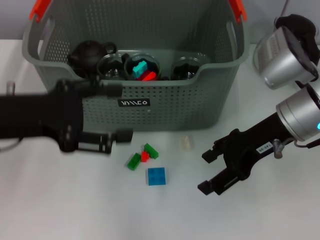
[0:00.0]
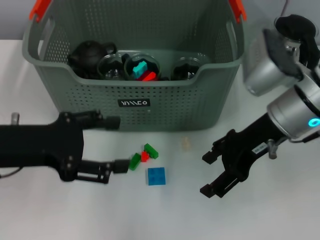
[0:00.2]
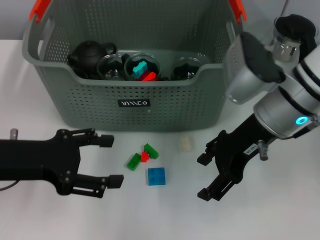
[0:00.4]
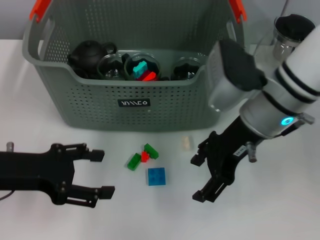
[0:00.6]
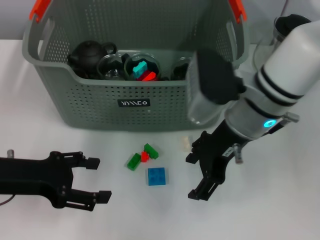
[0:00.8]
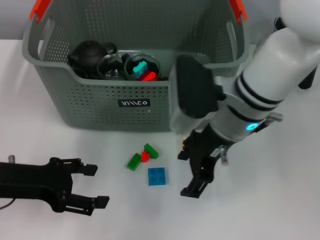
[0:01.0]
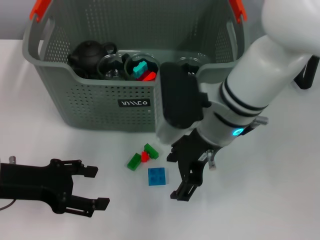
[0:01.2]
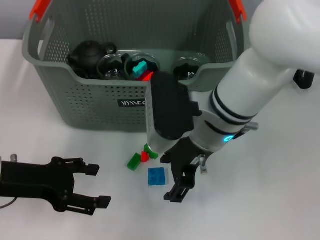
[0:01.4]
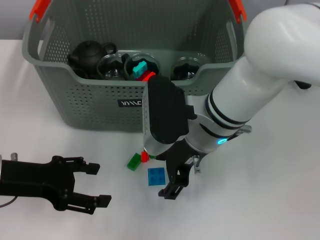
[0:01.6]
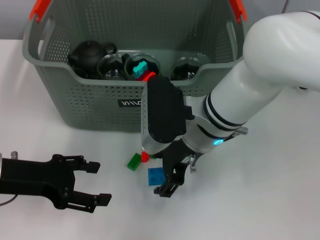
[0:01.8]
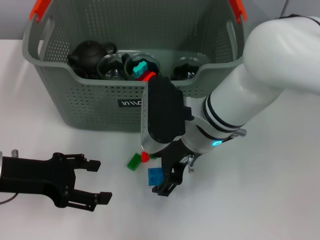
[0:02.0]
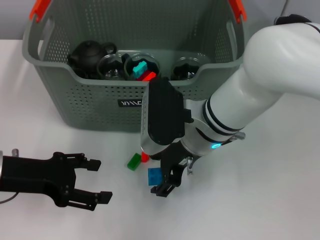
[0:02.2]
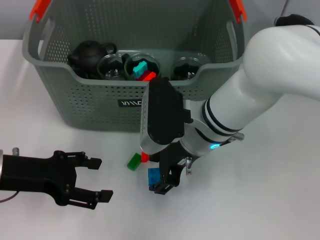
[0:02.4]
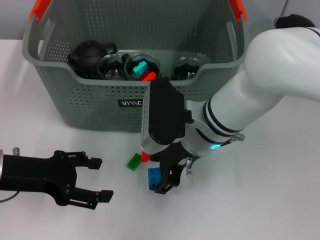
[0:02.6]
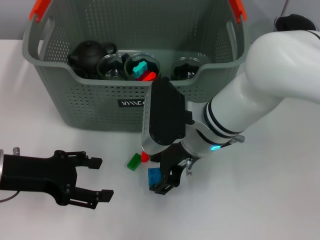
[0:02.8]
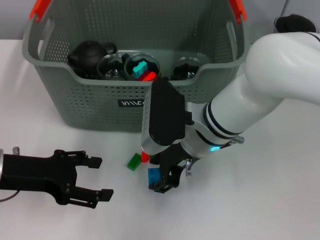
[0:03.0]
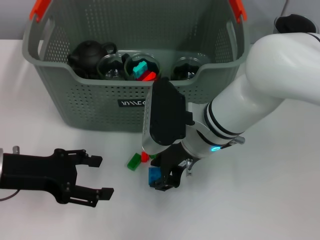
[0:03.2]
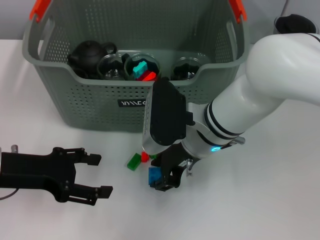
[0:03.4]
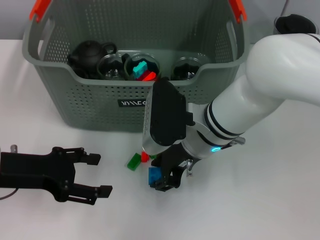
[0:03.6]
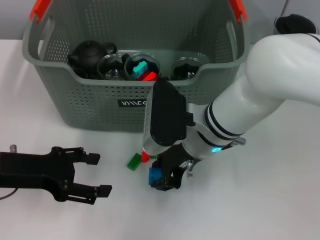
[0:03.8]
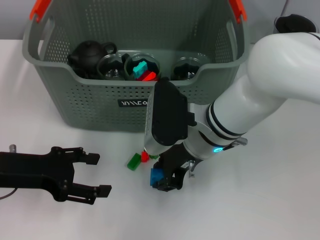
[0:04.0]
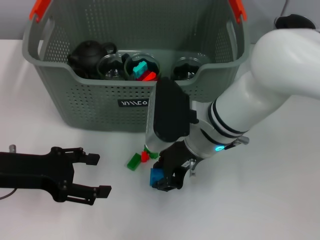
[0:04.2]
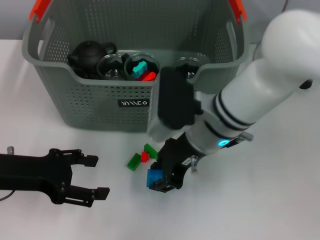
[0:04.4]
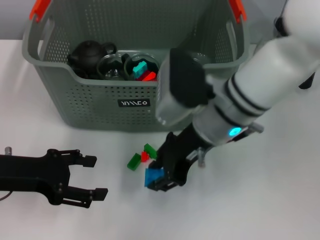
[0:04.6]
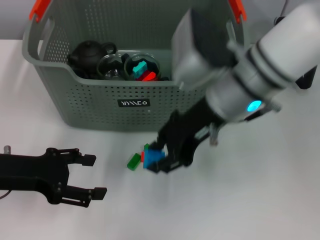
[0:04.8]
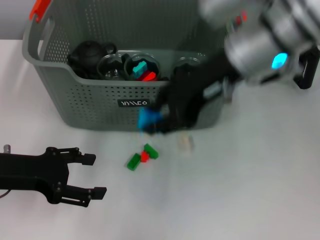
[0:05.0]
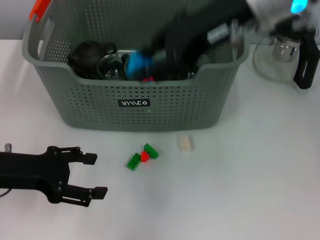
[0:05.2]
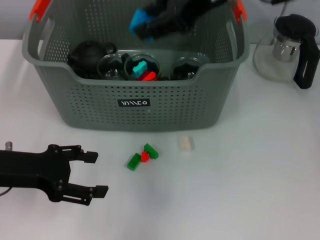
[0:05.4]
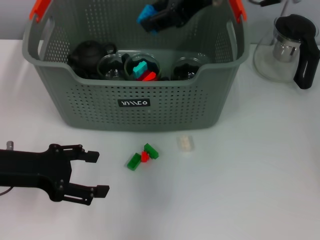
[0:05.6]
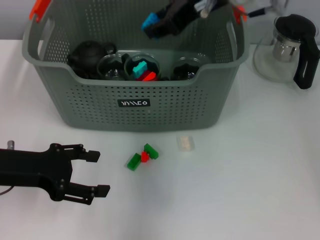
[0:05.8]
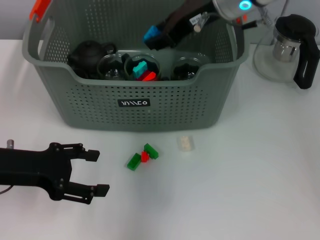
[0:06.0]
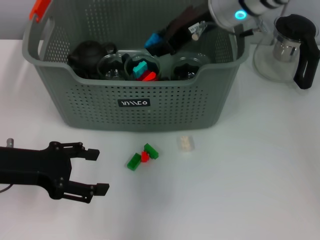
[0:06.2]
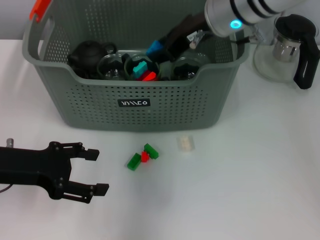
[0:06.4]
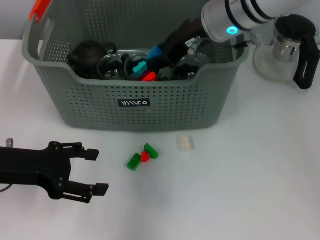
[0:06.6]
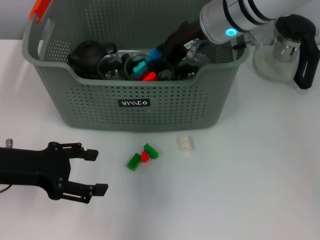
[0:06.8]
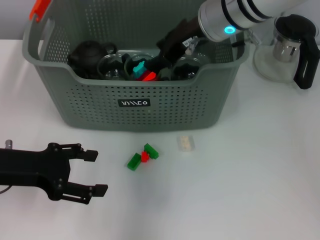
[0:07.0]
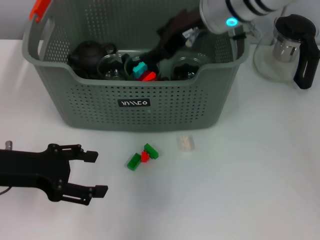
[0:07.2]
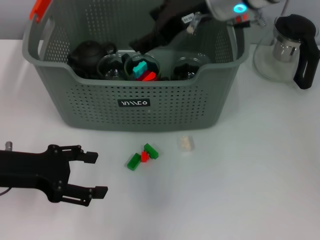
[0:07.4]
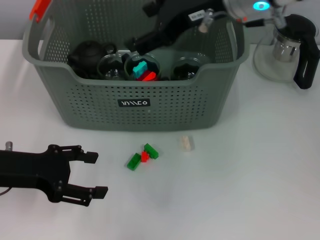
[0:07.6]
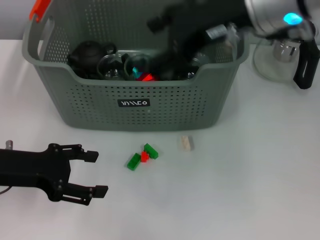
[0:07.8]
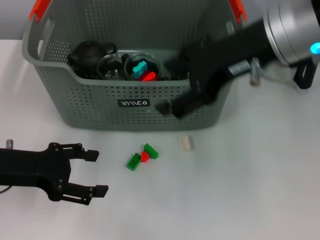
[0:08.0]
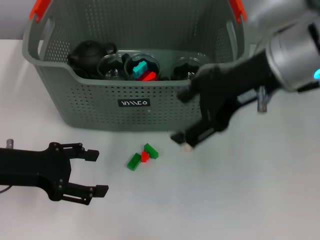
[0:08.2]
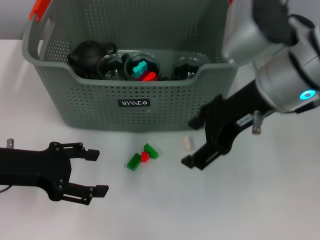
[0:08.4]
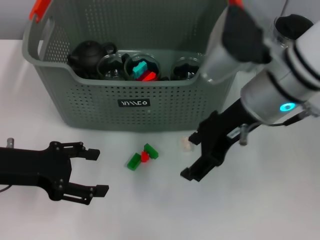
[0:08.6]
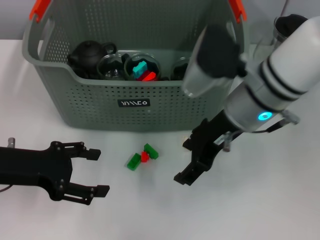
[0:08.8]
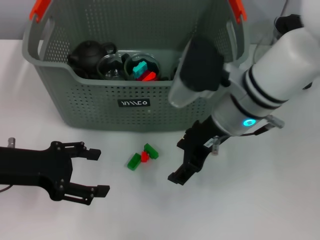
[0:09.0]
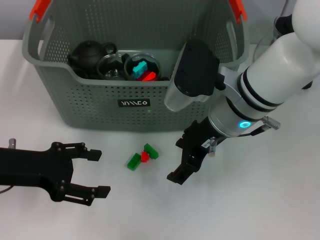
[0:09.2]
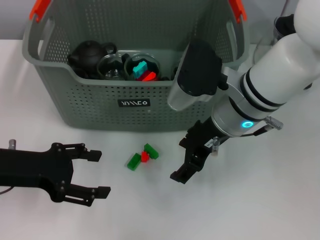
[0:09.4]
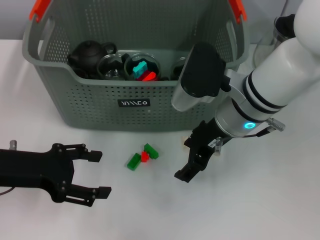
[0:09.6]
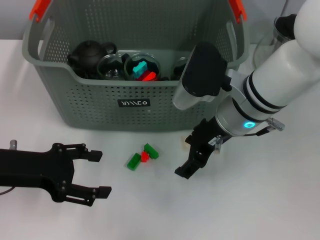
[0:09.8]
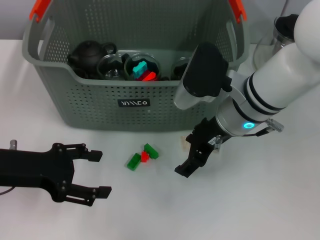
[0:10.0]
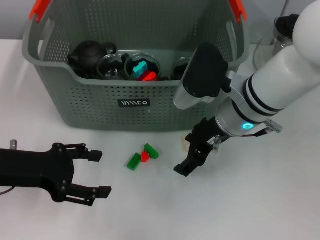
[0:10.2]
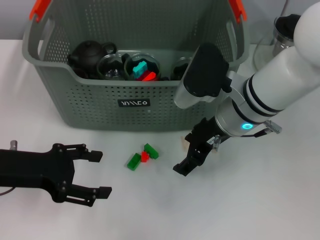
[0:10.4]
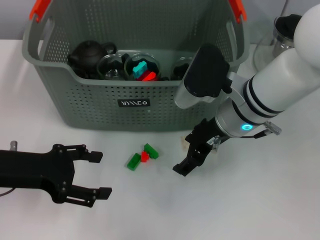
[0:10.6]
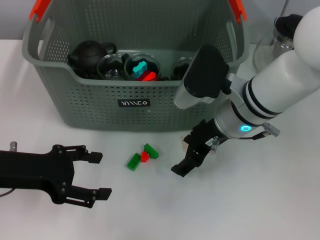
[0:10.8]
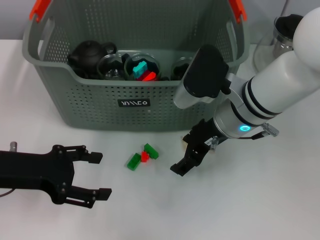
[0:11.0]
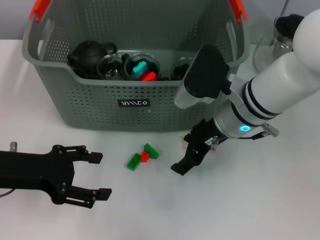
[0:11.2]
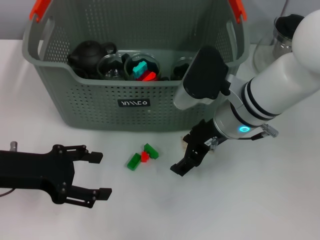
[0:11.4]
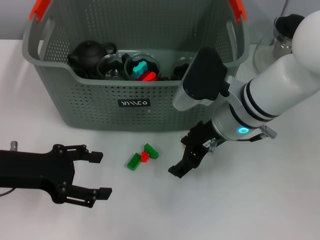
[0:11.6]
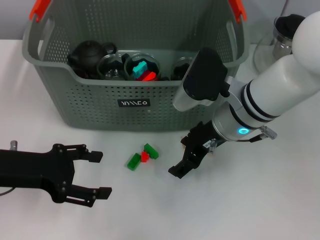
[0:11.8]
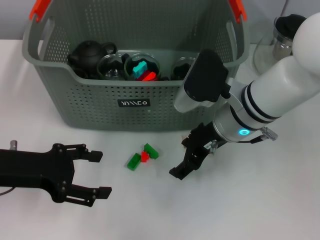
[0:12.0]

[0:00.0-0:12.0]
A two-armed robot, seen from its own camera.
Task of the whole recording: pick up the teacup on the table and place it into the storage bin, pick up the block on the table and place it into the storage bin.
Step, 0:00.0 to 0:04.0: Grasp the dark blue block with right gripper.
Step, 0:04.2 to 0:07.2: Place the dark blue block in the storage box with right gripper.
0:00.0 to 0:01.6: The left gripper is displaced downward by roughly 10 cm. Meanwhile the right gripper travels to the left by some 15 cm.
0:01.6 to 0:04.4: The grippers stay close to where they were, moving slightly.
0:04.4 to 0:06.0: The right gripper travels upward and forward by approximately 15 cm.
0:06.0 to 0:07.6: The right gripper ends up about 5 cm from where it was, and opens.
0:07.6 to 0:09.0: The right gripper moves downward, some 10 cm.
0:09.0 to 0:10.4: The grippers stay close to where they were, moving slightly.
0:10.4 to 0:12.0: Both grippers stay about where they are.

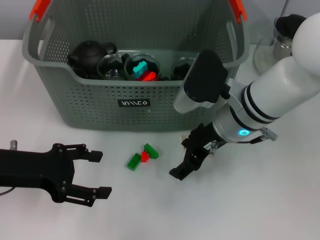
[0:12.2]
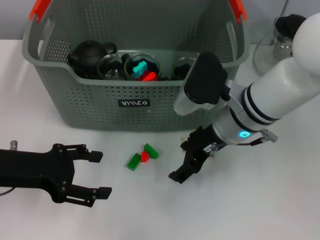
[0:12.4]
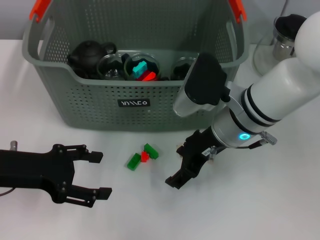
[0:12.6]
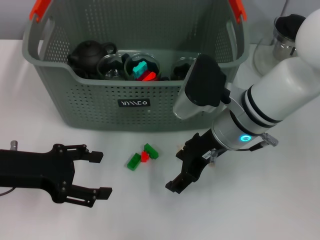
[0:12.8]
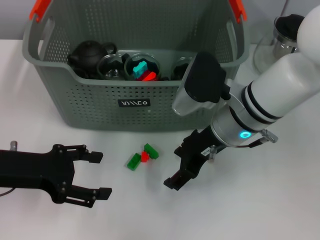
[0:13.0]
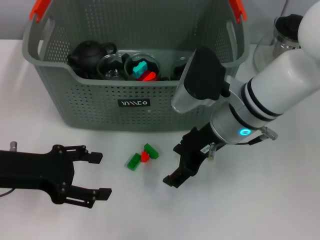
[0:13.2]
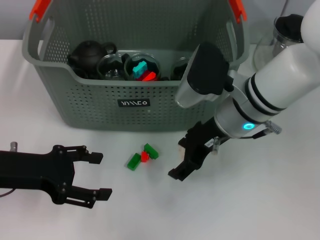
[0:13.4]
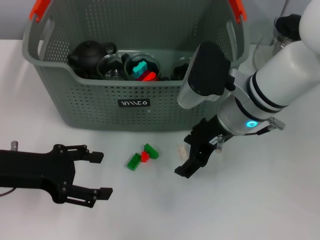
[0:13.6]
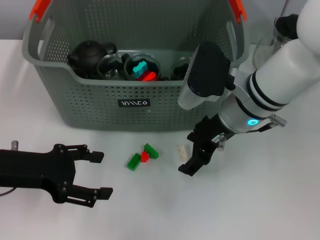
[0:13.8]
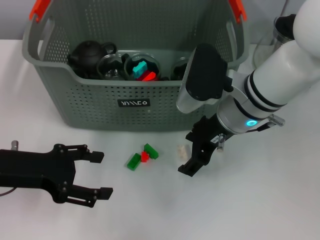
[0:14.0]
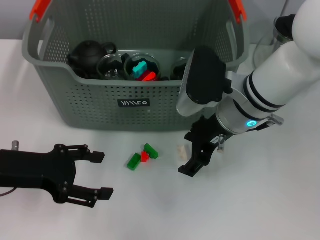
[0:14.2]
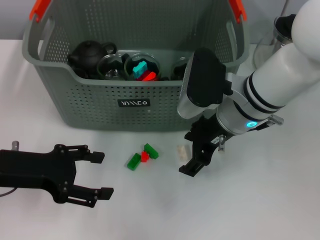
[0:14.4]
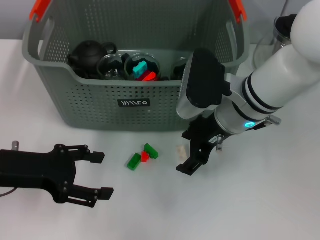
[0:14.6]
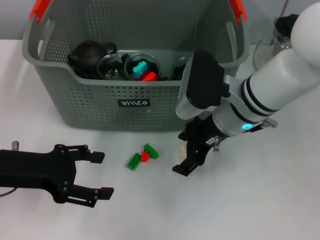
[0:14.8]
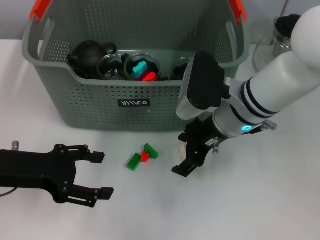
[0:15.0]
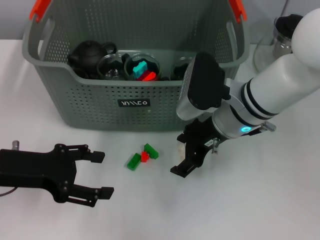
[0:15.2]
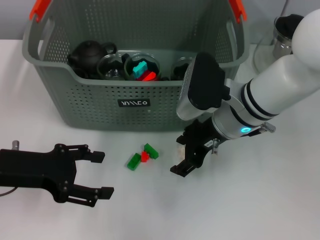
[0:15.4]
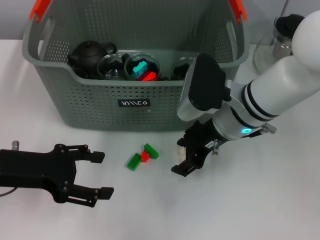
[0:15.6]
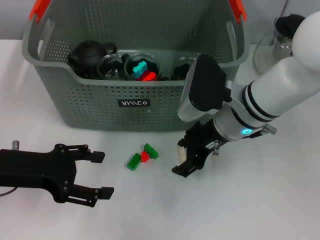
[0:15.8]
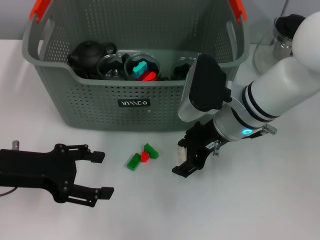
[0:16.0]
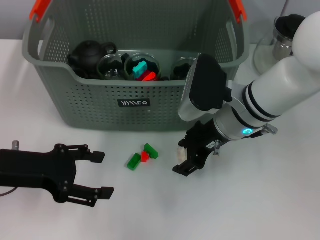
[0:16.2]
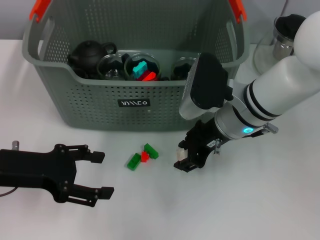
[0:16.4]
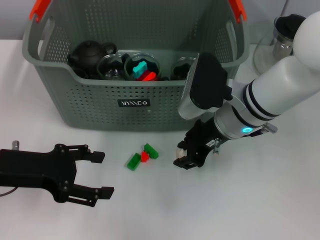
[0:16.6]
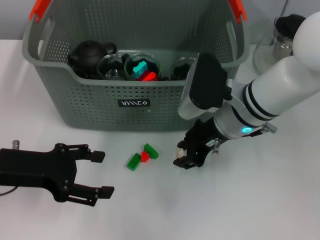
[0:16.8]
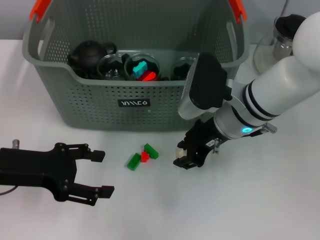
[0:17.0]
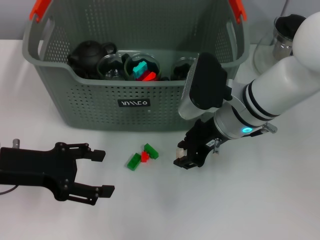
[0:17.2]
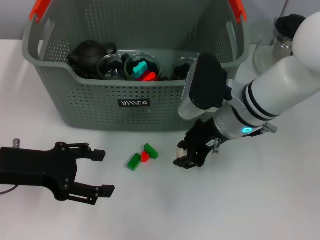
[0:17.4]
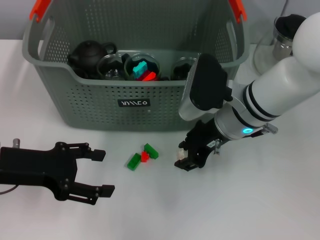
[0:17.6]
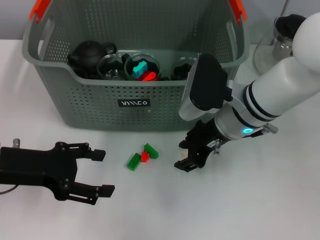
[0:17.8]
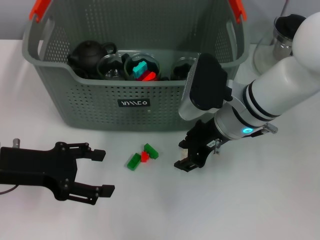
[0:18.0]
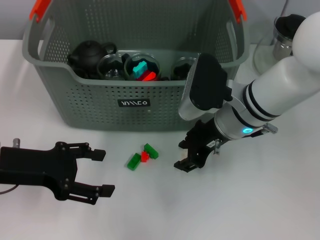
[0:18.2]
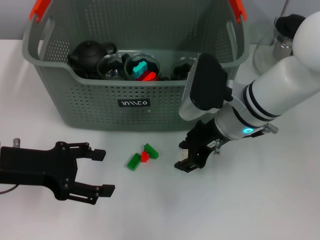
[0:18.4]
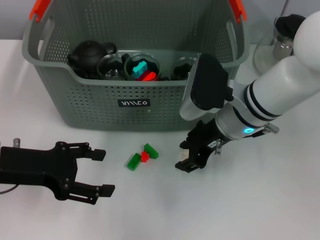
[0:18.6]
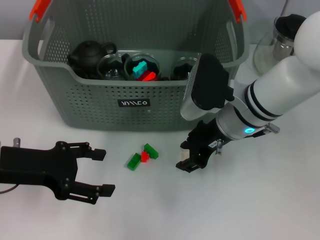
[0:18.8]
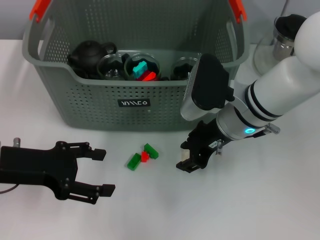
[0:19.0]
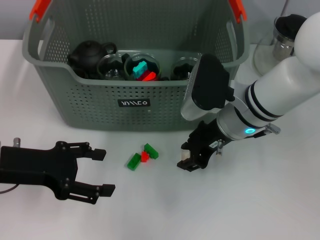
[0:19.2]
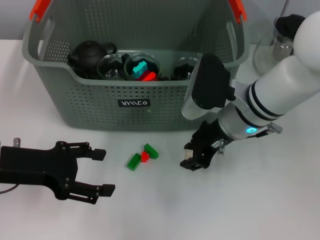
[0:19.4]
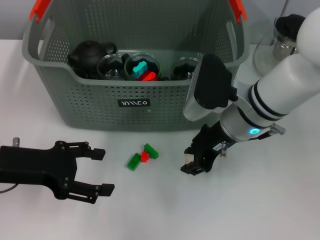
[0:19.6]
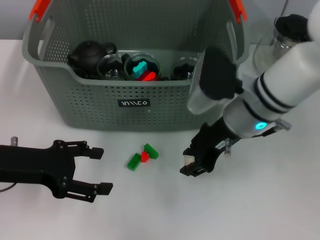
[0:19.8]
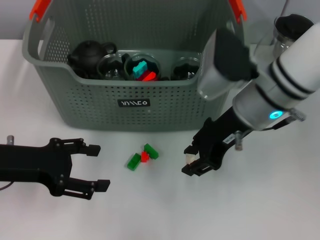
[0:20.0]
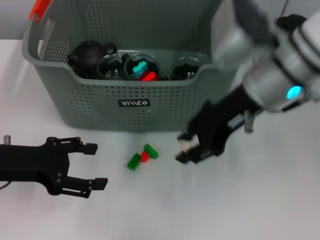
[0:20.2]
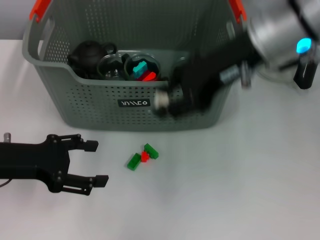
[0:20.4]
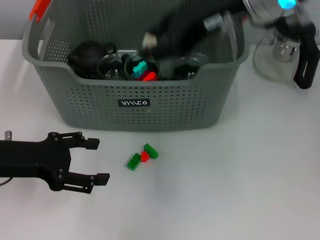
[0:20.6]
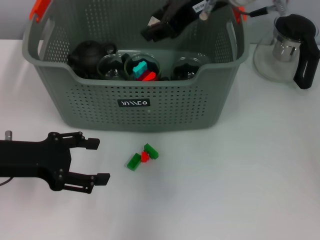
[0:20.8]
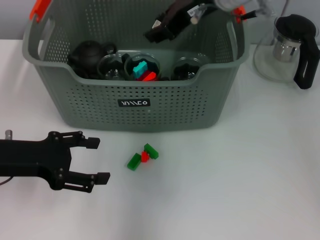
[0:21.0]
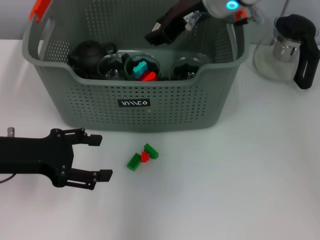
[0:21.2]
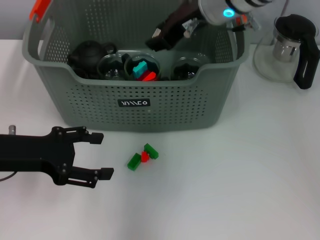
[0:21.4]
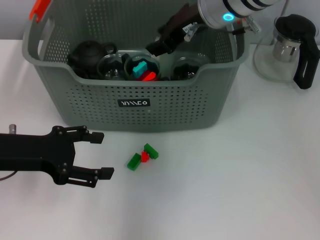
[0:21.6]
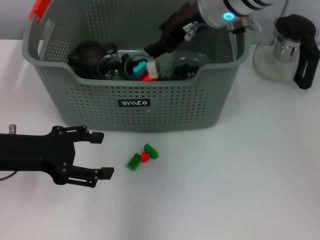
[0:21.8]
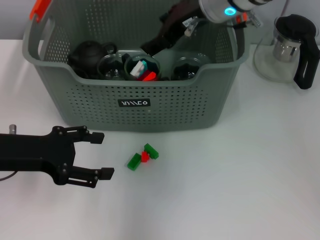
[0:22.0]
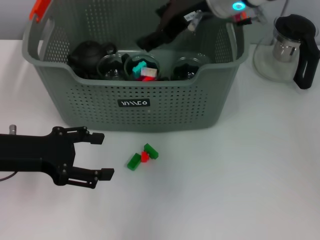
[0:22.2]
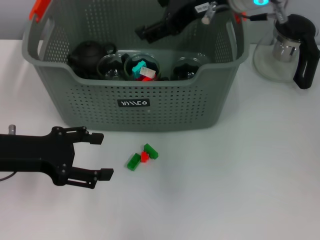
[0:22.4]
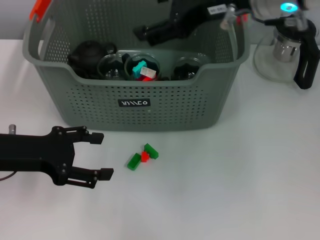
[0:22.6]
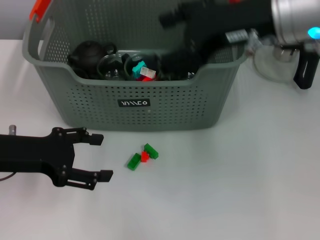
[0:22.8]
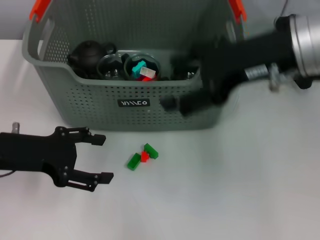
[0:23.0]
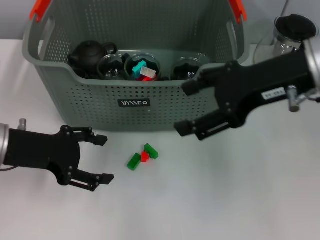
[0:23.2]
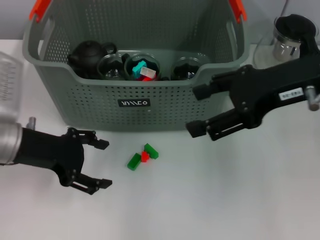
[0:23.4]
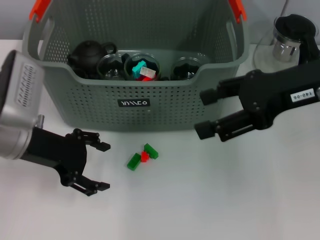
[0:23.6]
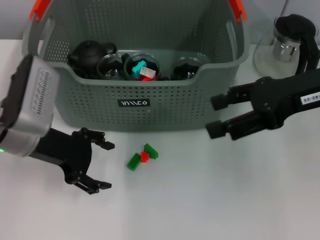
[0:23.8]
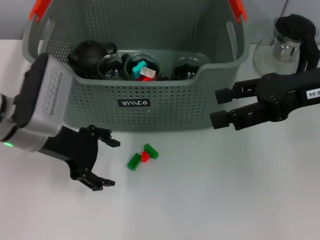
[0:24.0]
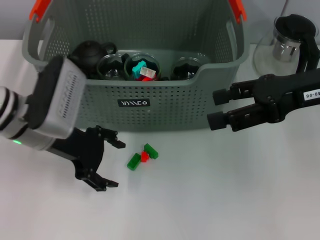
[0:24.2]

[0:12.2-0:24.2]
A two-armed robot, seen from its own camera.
Task of the whole recording: pick up the teacup on the table and place it into the storage bin, pick up the block on the table and place it into the storage bin.
Step, 0:12.2 to 0:19.4: Grasp the white block with right gripper.
Step, 0:19.6 to 0:22.0: Place the white block in the storage box with right gripper.
0:12.2 to 0:15.2: The grippers stay close to where they were, moving slightly.
0:15.2 to 0:16.6: The right gripper closes its fingers.
0:16.6 to 0:18.2: Both grippers stay about where they are.
0:18.2 to 0:19.8: The grippers make only small movements.
0:19.8 to 0:21.2: The right gripper moves upward and forward, some 15 cm.
0:21.2 to 0:22.6: The right gripper heads backward, covering about 5 cm, and opens up.
0:22.6 to 0:24.2: The left gripper moves to the right and forward, about 10 cm, while the right gripper moves to the right and downward, about 10 cm.
